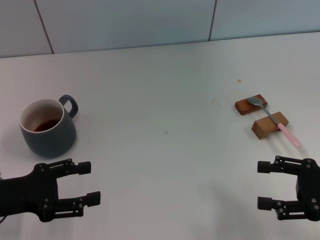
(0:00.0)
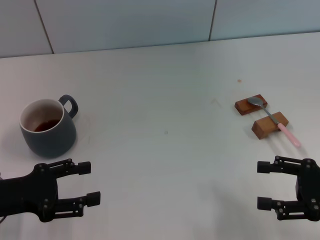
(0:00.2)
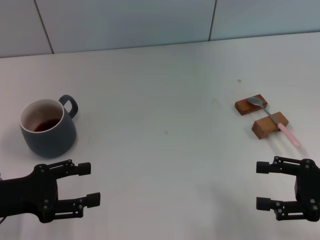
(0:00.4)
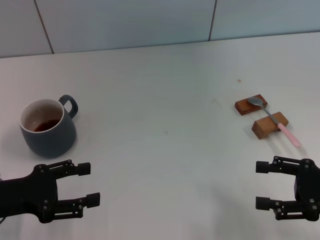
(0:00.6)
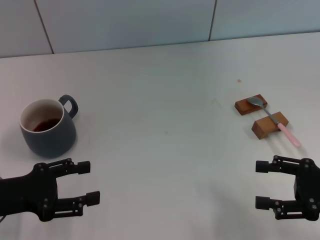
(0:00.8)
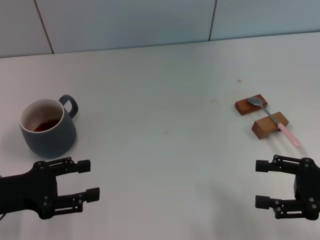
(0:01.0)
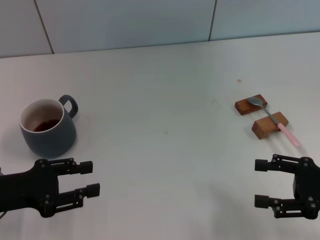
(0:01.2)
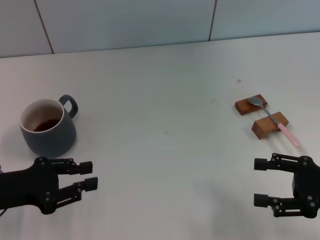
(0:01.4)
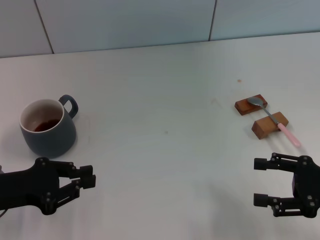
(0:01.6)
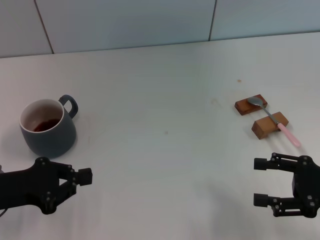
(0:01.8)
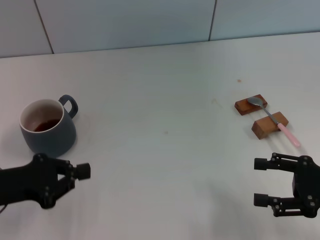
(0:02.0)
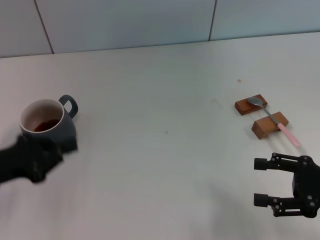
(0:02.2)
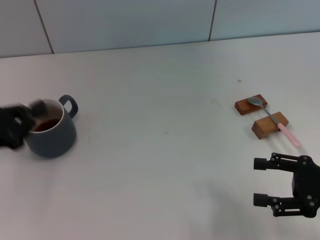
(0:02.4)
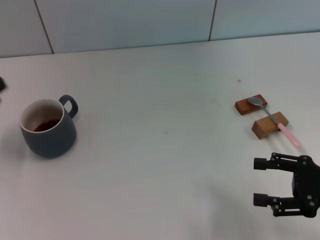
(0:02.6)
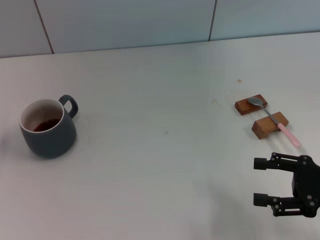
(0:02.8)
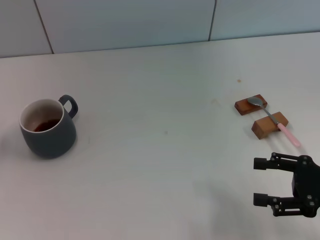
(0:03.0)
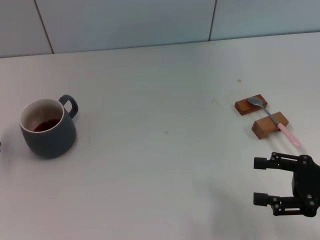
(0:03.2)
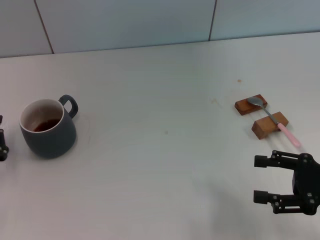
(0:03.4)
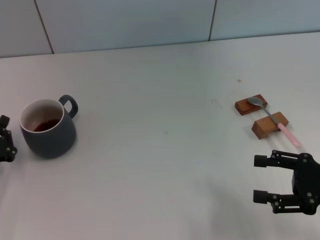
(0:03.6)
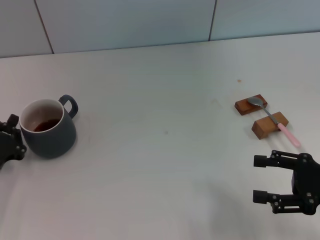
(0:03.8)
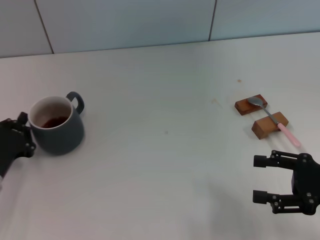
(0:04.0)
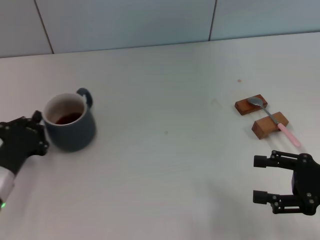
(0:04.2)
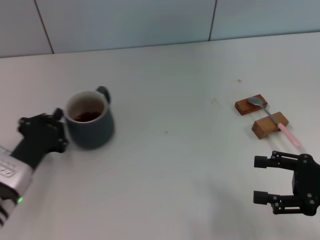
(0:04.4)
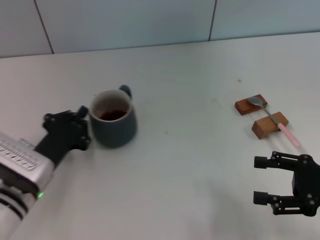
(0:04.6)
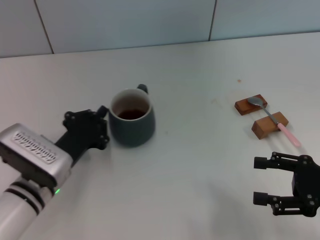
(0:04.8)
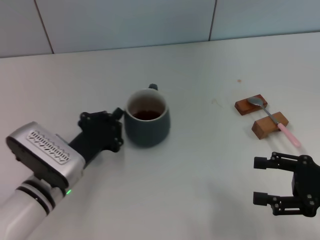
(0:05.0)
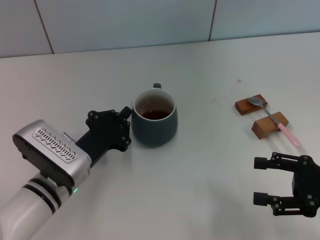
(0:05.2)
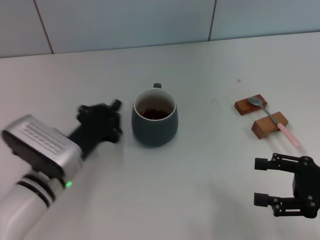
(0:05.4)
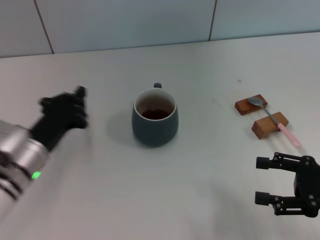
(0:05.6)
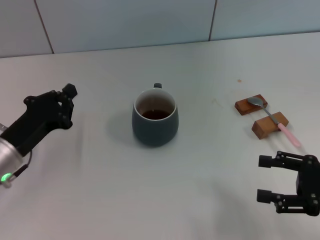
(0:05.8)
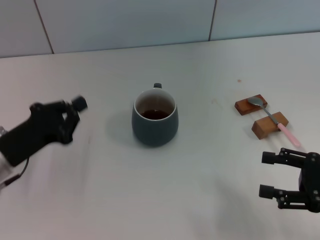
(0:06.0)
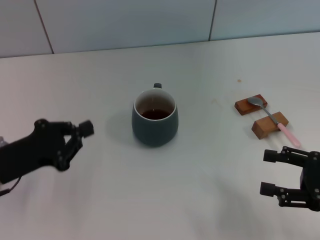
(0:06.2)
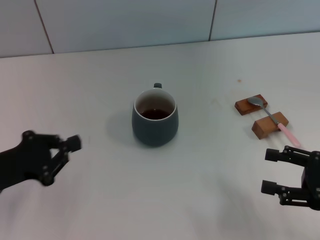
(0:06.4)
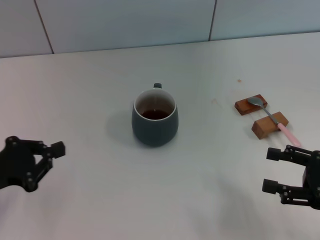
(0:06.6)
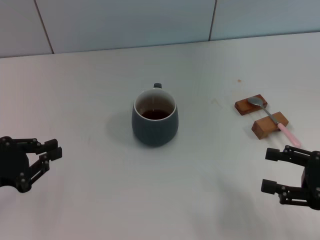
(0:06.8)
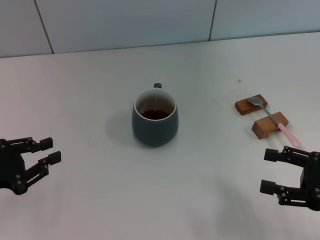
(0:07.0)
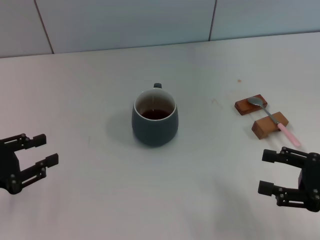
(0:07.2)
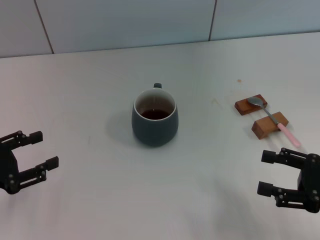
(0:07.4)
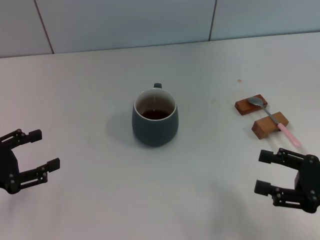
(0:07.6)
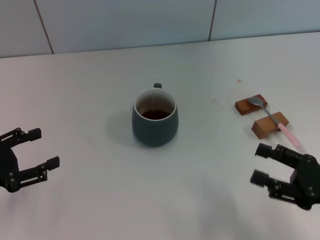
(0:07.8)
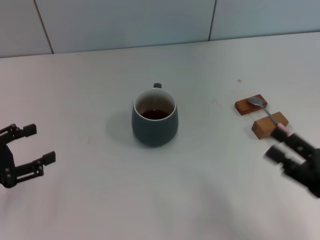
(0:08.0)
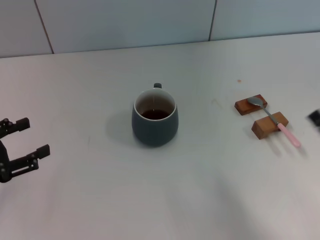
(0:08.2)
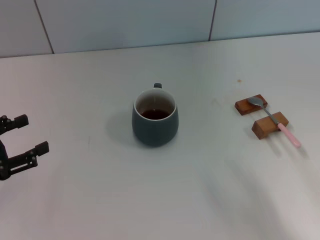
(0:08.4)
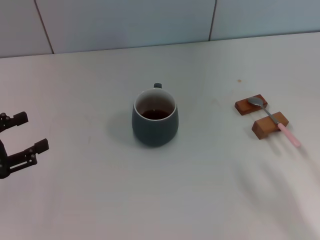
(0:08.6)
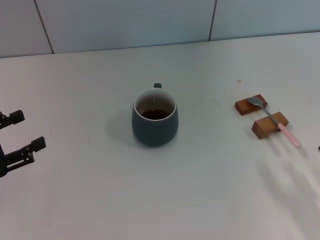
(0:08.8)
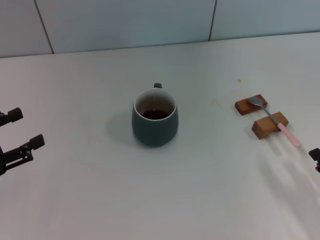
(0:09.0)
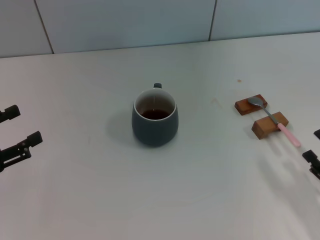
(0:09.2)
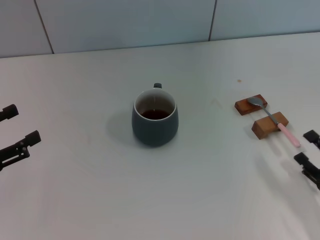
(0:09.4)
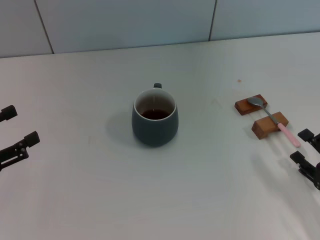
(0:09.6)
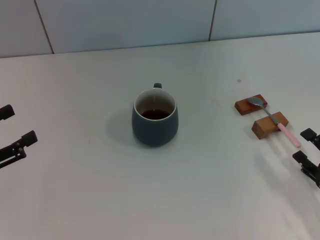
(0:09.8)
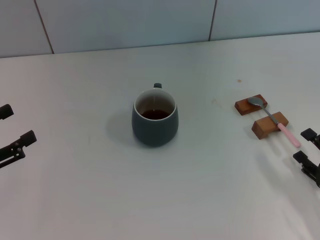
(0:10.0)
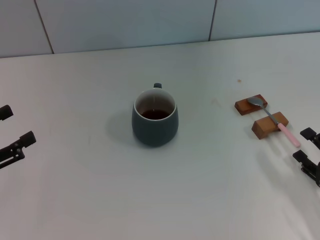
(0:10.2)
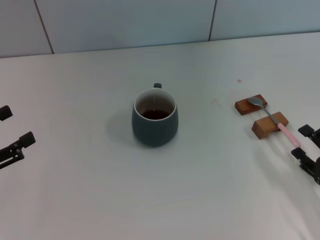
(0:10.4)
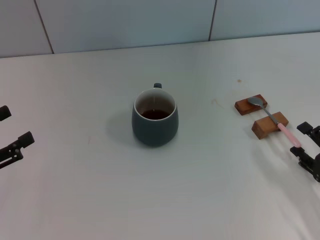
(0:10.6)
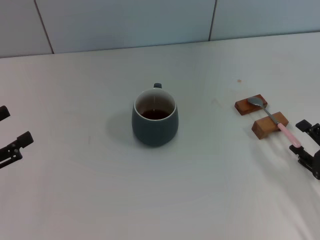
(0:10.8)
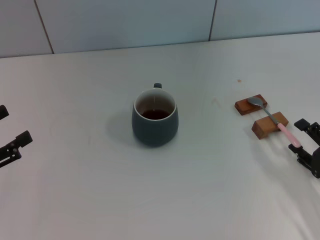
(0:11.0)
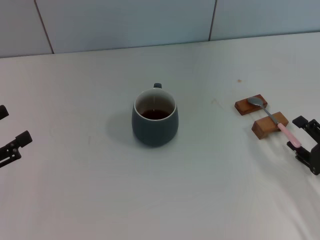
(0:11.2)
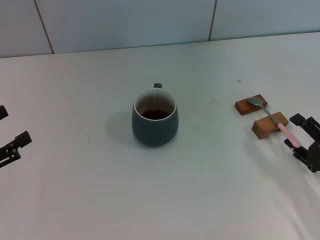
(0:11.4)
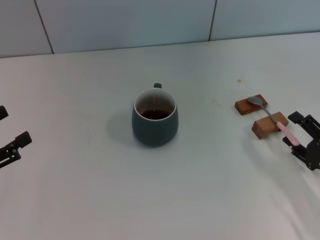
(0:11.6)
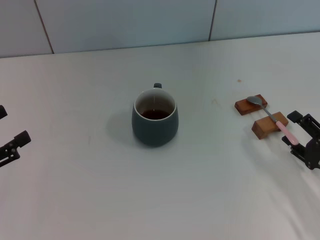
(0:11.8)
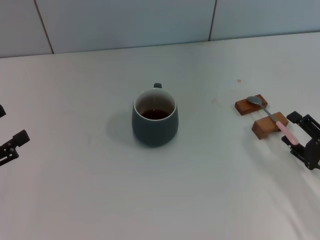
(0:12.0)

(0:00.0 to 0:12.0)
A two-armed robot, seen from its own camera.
Task of the whole recording: Move the grey cup to the center, lift the pink spoon, stir it three times in the cup, and put the spoon into the cup.
Step, 0:00.0 - 0:05.2: Move the cup with coffee to the center of view with the left gripper.
0:00.0 - 0:01.6: The left gripper closes.
0:01.6 - 0:03.0: The left gripper is displaced to the left by some 5 cm, and closes.
0:03.0 - 0:04.4: The left gripper shifts about 10 cm to the right.
0:04.4 - 0:06.0: The left gripper goes about 5 cm upward, and travels to the right and back again, some 10 cm each way.
0:06.0 - 0:07.6: The left gripper travels to the left by roughly 5 cm, and opens up.
0:07.6 - 0:09.0: The right gripper heads downward and backward, covering approximately 10 cm.
0:09.0 - 0:12.0: The grippers move only a little.

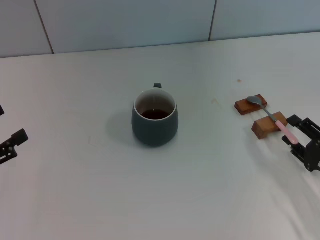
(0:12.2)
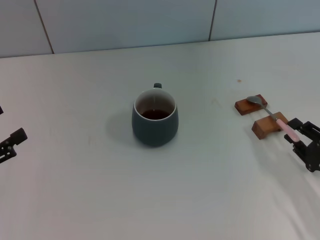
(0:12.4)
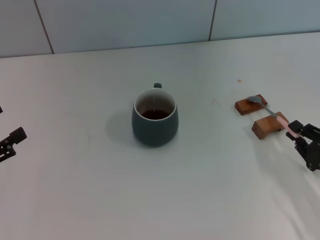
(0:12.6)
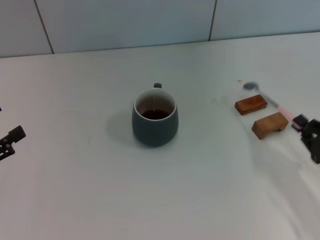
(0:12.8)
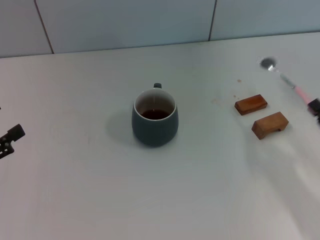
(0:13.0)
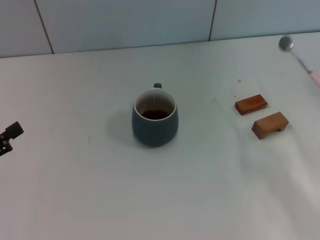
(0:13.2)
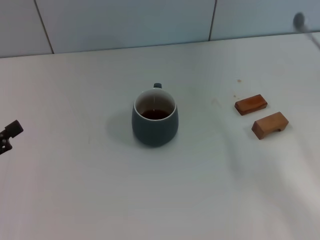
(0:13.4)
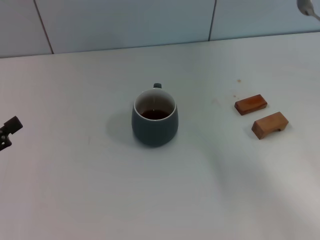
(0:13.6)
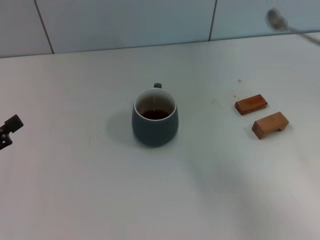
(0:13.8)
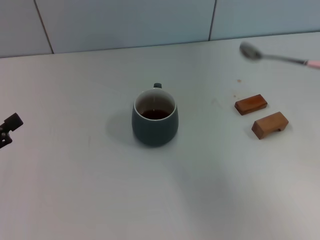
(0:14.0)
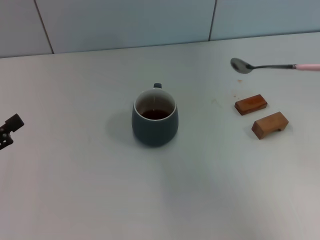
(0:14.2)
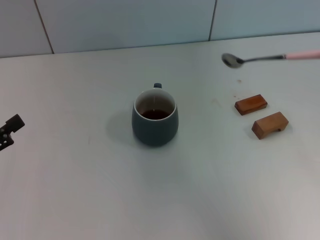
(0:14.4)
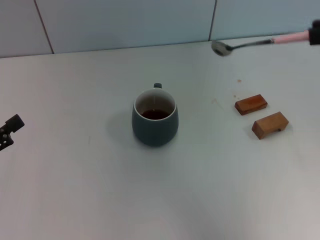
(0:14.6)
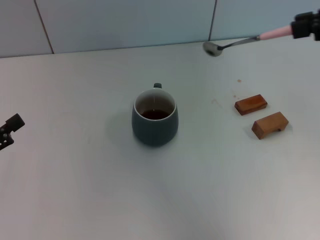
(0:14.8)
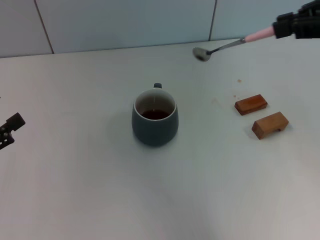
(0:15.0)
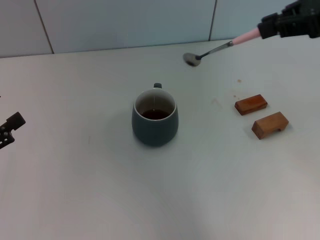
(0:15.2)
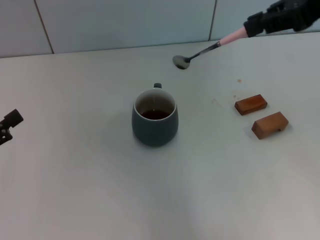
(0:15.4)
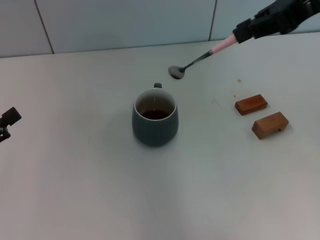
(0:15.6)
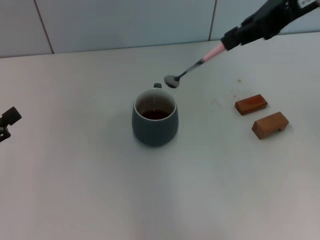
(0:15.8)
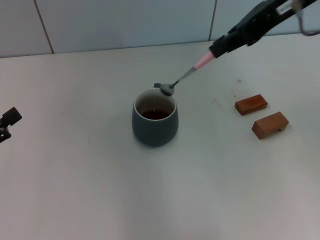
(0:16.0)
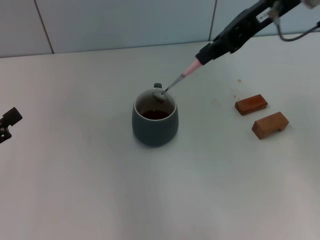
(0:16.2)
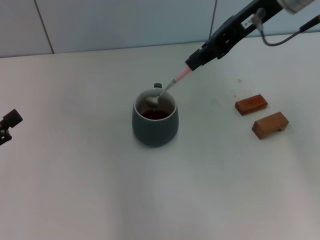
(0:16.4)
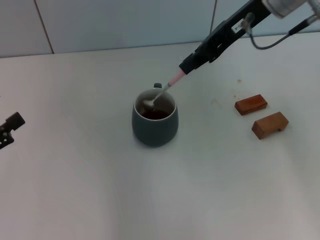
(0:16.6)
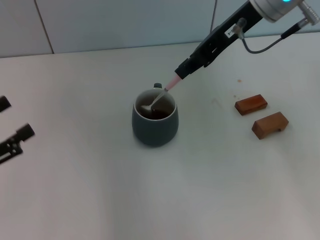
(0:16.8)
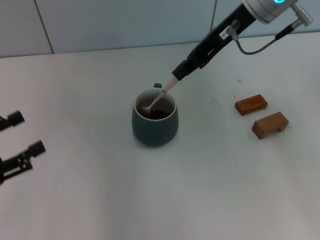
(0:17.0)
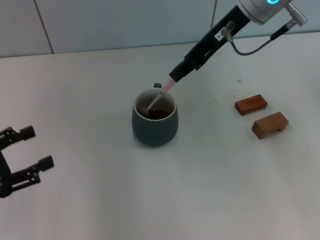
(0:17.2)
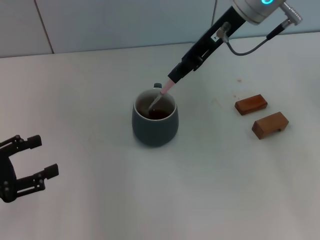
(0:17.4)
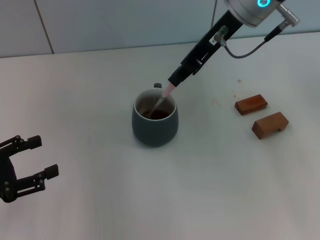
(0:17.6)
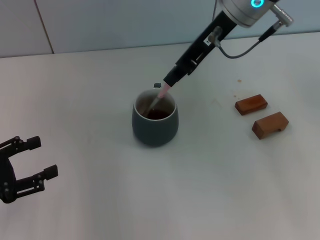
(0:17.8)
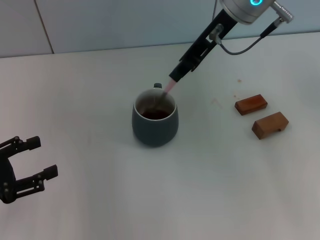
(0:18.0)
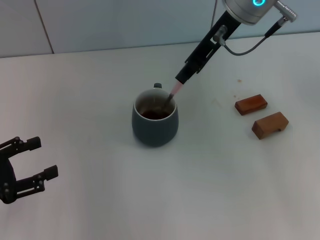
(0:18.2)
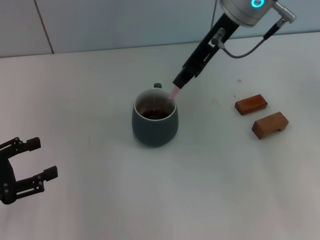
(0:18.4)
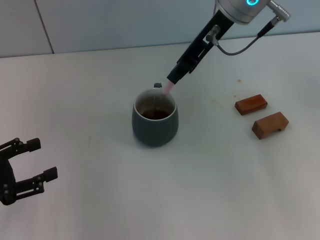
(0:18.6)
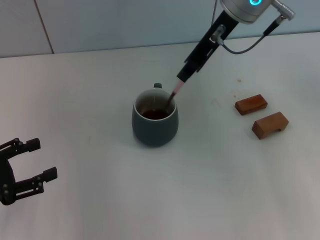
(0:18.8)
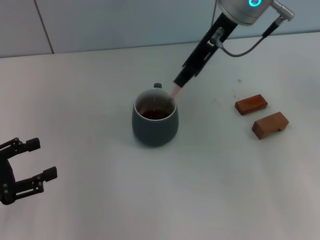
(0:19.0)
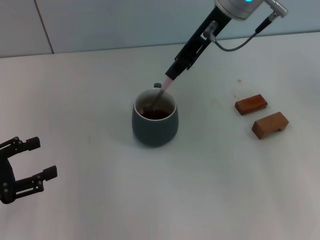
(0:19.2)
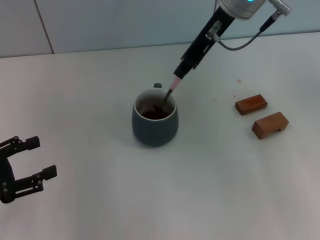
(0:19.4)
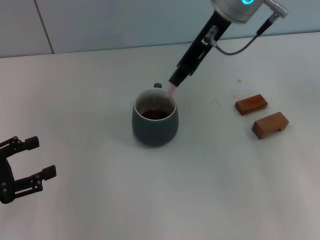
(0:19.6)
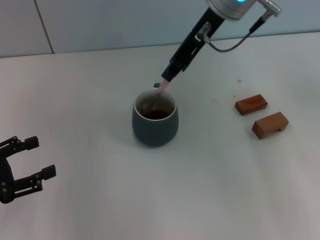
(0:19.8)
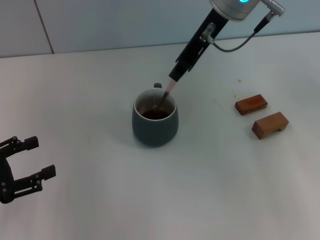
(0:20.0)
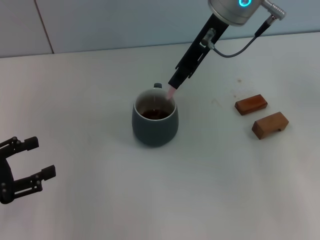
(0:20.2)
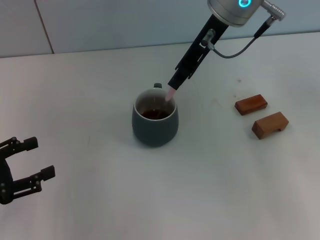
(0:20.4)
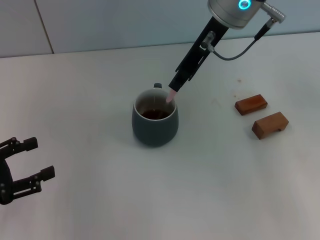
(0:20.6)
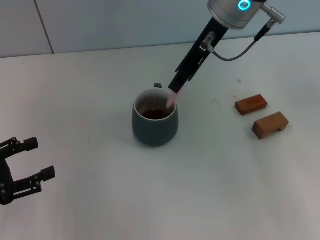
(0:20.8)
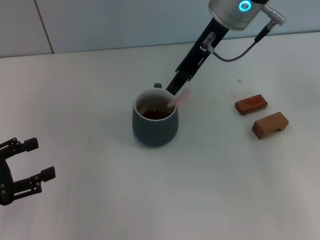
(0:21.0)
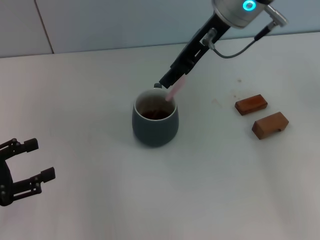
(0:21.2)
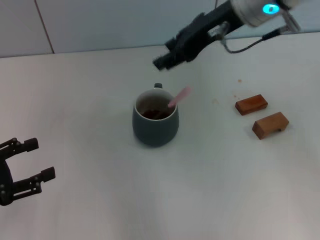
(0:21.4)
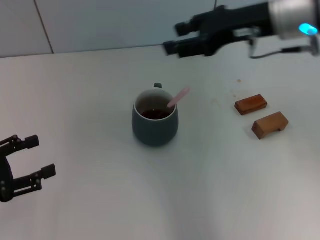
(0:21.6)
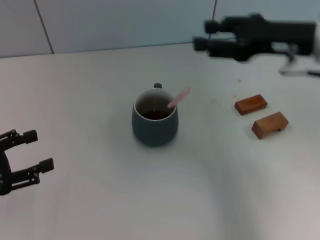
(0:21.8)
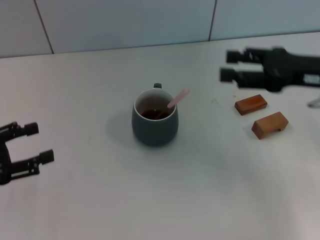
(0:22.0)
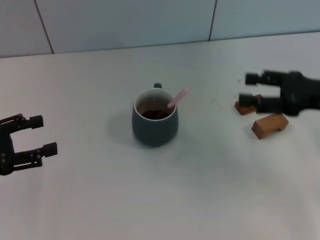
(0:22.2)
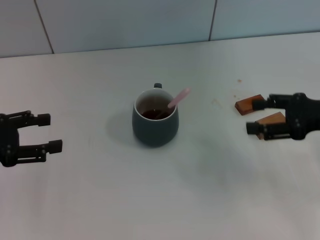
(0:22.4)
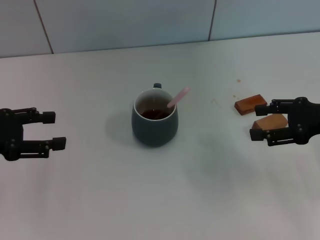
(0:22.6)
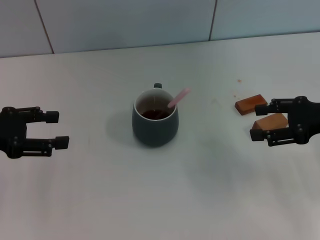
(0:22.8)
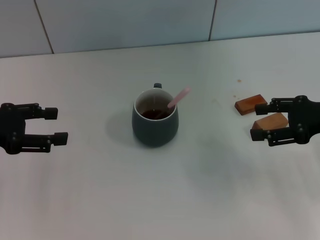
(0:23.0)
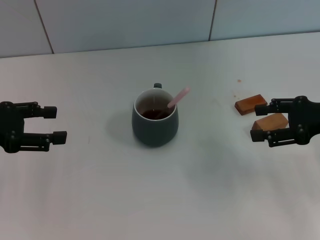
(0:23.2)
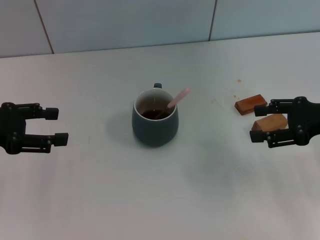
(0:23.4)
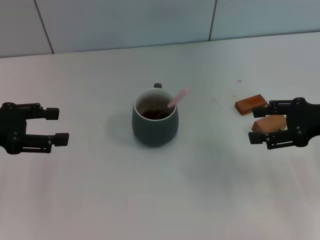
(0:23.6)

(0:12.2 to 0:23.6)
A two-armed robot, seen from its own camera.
Task of the whole recording: Move the grey cup to the center, lift the pink spoon, stir it three times in the cup, and put the spoon into the cup.
Step, 0:13.4 - 0:21.0: Stir the coffee in the cup with the right gripper.
0:12.2 - 0:13.6: The right gripper goes about 10 cm upward and to the right, and closes.
0:13.6 - 0:15.0: The right gripper is displaced upward, forward and to the left by approximately 25 cm.
0:15.0 - 0:16.4: The right gripper moves forward and to the left, roughly 15 cm.
0:16.4 - 0:17.8: The right gripper moves some 5 cm.
0:17.8 - 0:20.8: The grippers make only small movements.
0:20.8 - 0:22.2: The left gripper shifts by about 5 cm; the right gripper heads to the right, downward and backward, covering some 25 cm, and opens up.
0:22.2 - 0:23.6: The left gripper ends up about 5 cm from where it was.
